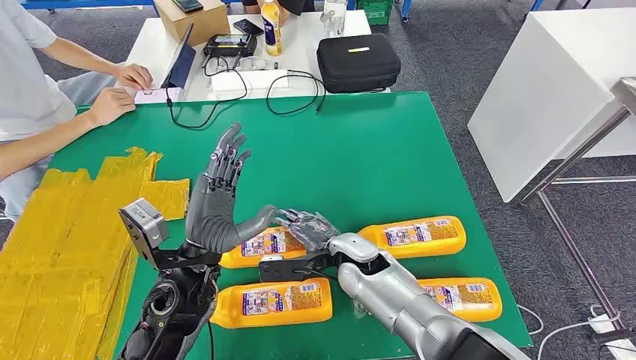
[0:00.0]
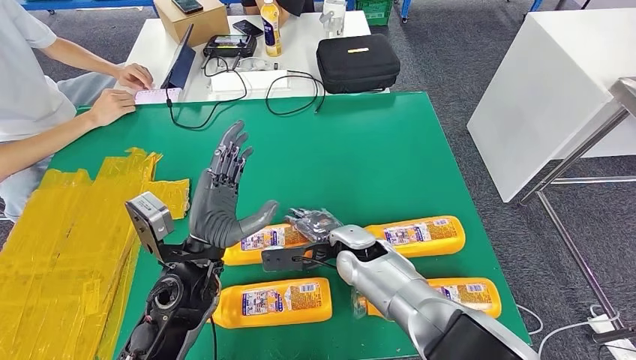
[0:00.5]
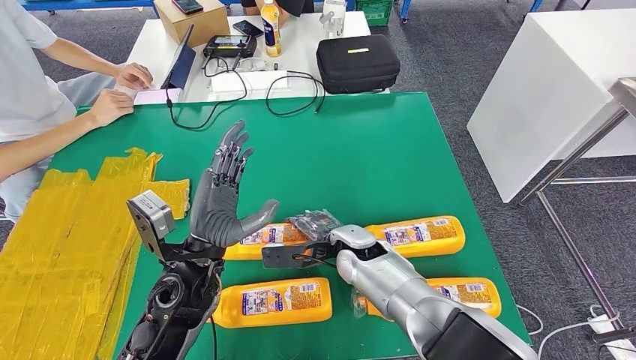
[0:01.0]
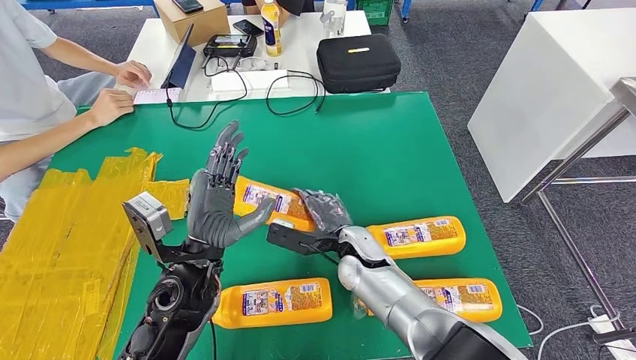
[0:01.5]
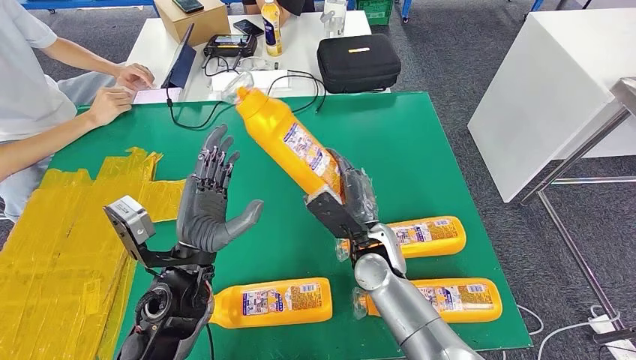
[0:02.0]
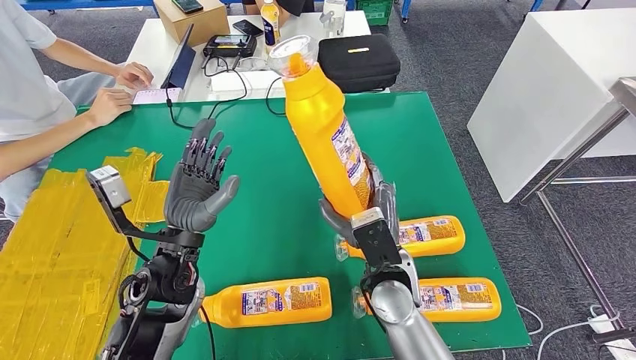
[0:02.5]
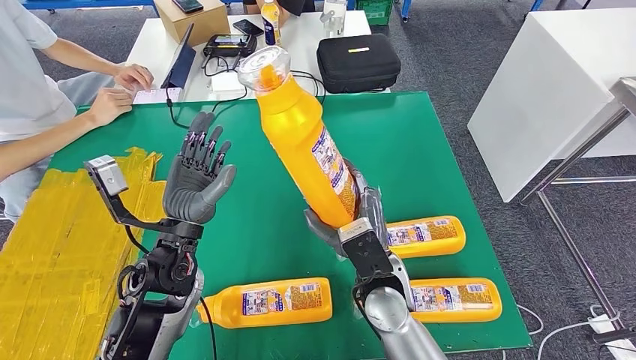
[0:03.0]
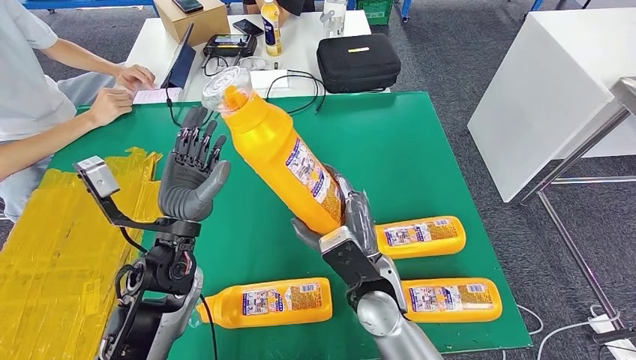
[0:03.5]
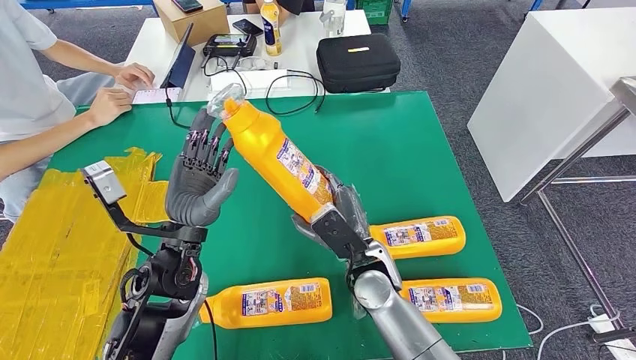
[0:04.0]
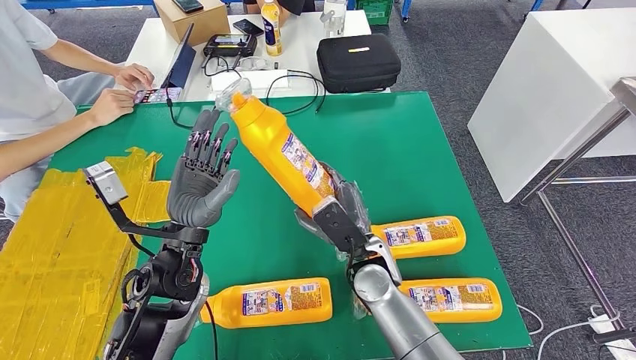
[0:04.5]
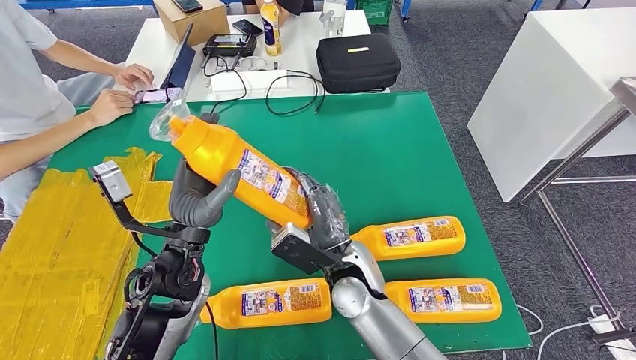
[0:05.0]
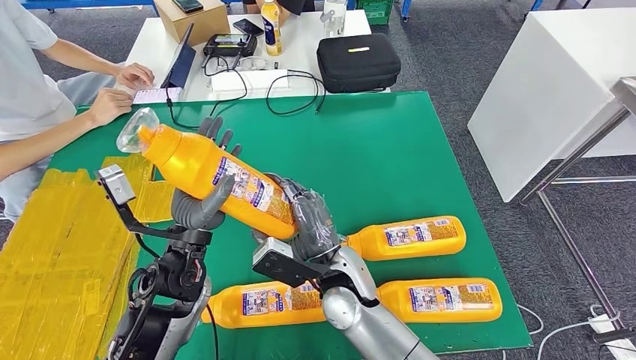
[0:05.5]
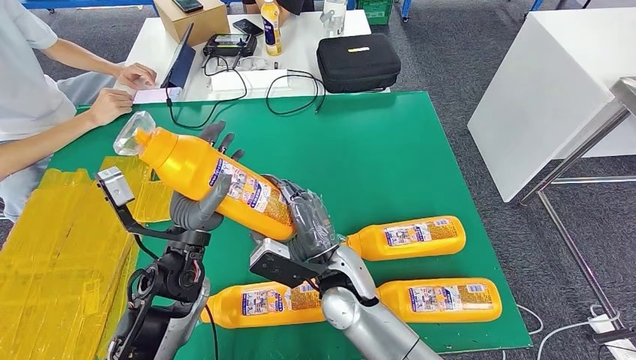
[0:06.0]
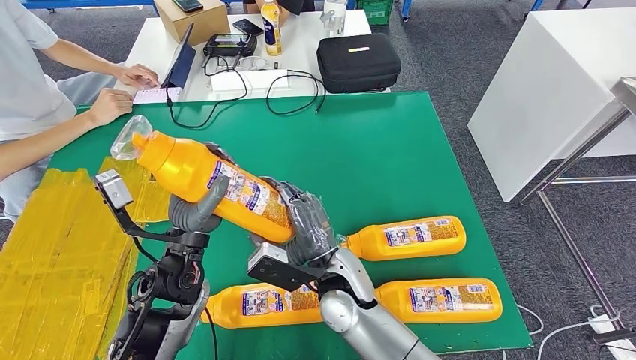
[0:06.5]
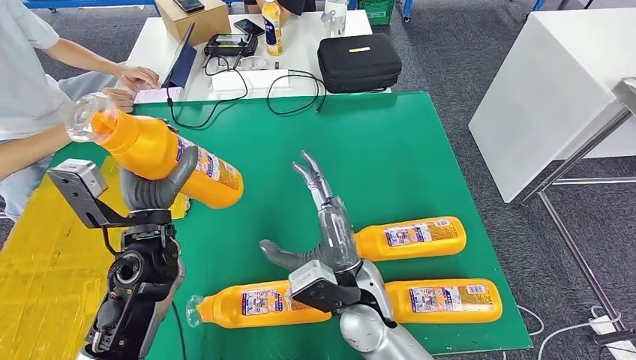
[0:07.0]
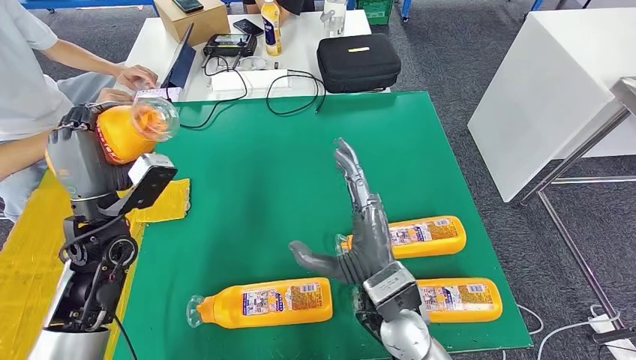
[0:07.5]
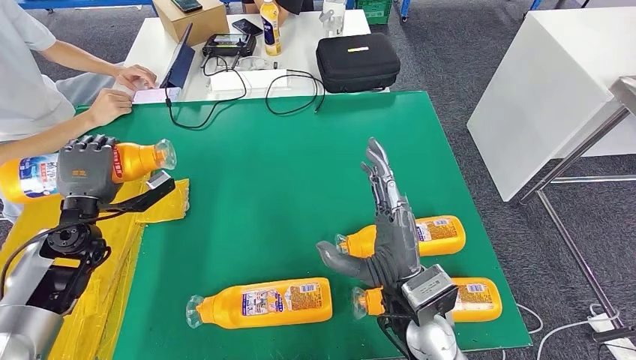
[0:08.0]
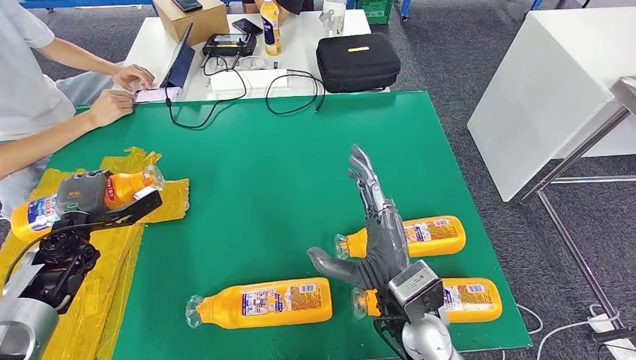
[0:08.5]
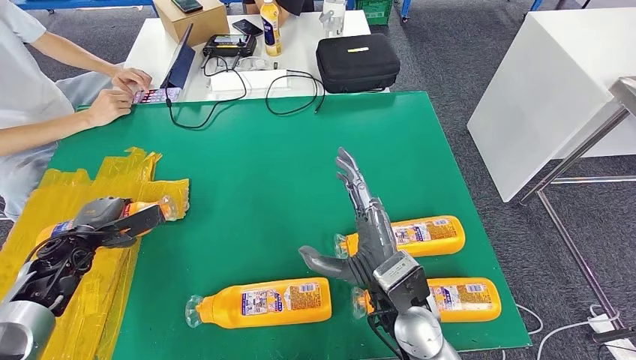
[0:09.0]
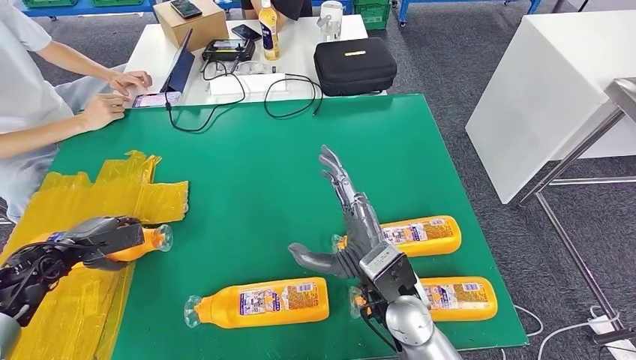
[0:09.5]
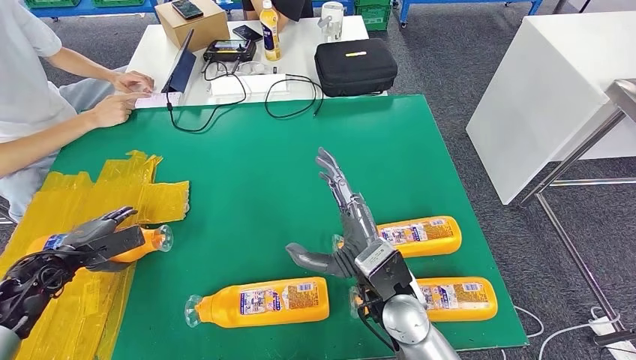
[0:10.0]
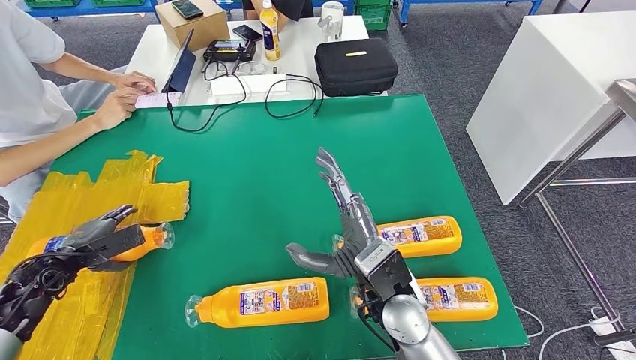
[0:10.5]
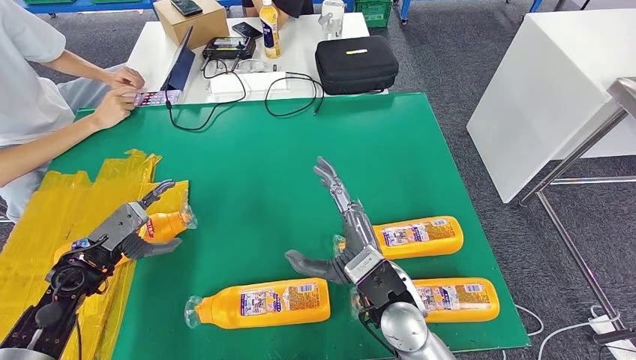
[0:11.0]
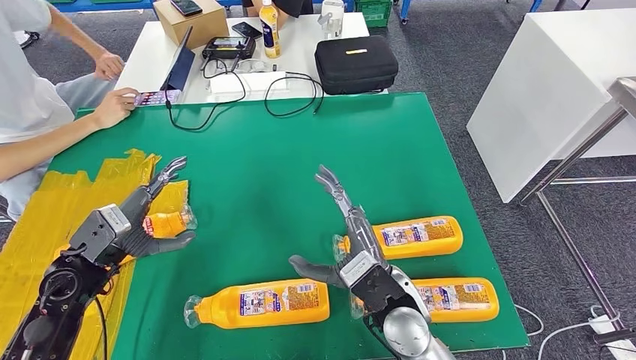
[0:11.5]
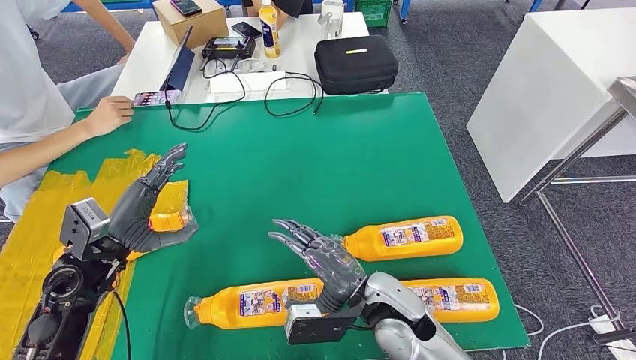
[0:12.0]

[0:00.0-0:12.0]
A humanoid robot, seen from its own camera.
Step, 0:00.0 to 0:04.0: Take the fast-moving consumer goods bottle from the table.
Step, 0:04.5 to 0:11.5: Flip the fast-moving consumer goods bottle to the front side.
0:04.0 to 0:06.0: The right hand shifts some 5 cm to the left.

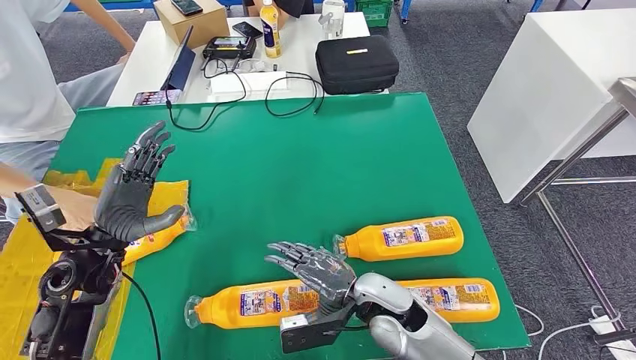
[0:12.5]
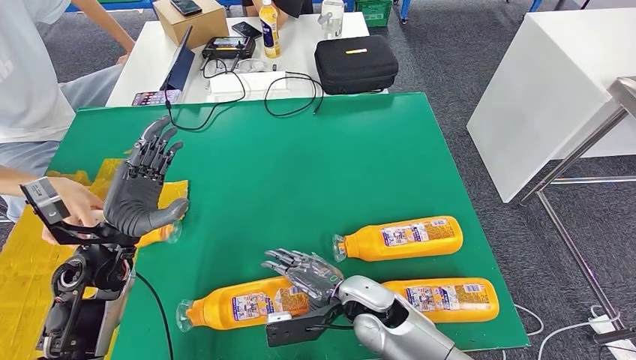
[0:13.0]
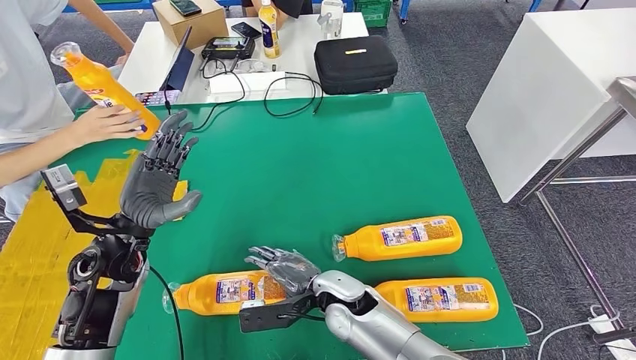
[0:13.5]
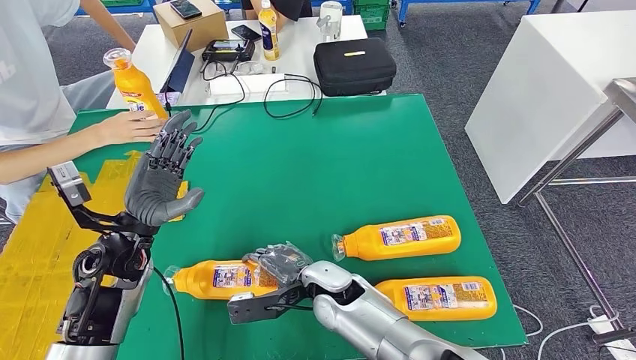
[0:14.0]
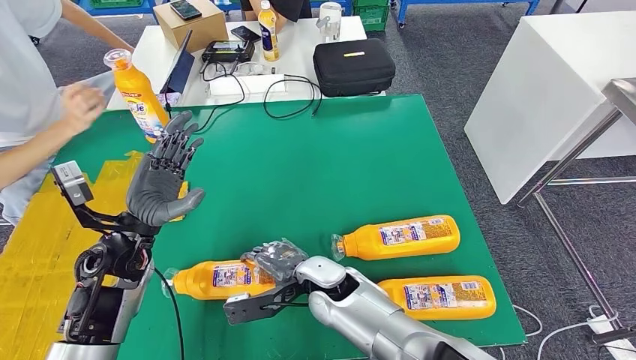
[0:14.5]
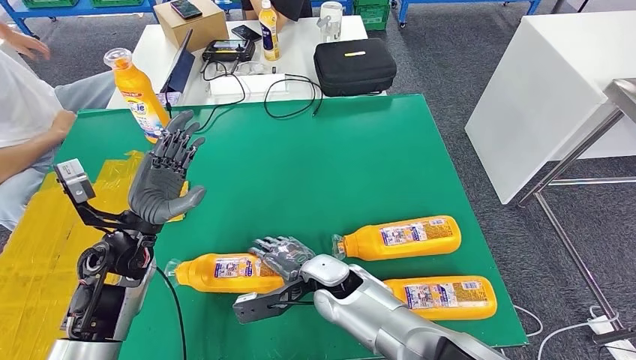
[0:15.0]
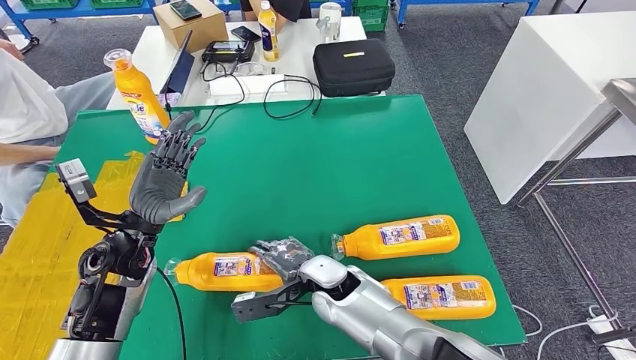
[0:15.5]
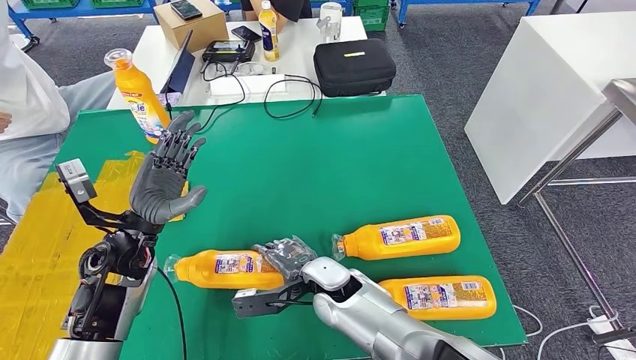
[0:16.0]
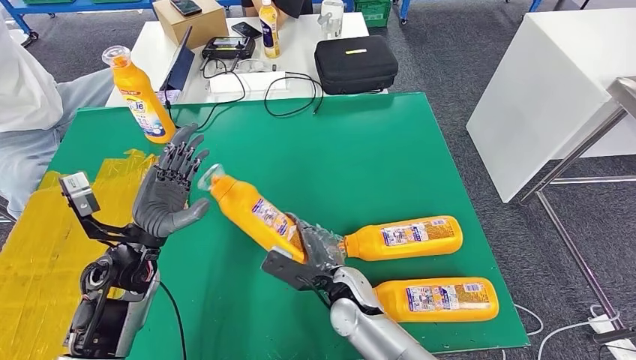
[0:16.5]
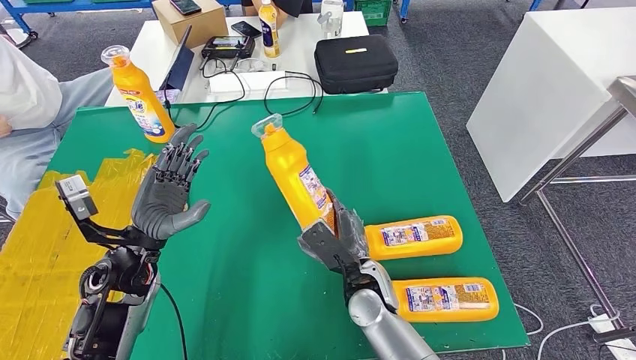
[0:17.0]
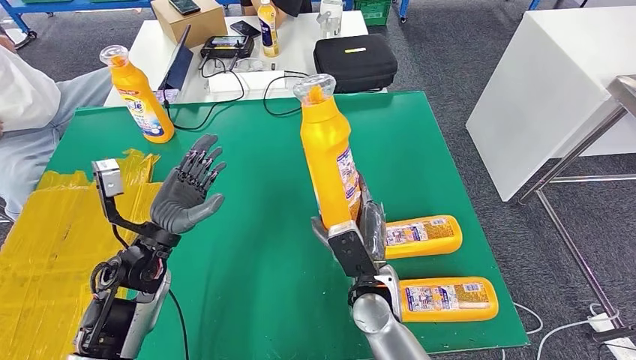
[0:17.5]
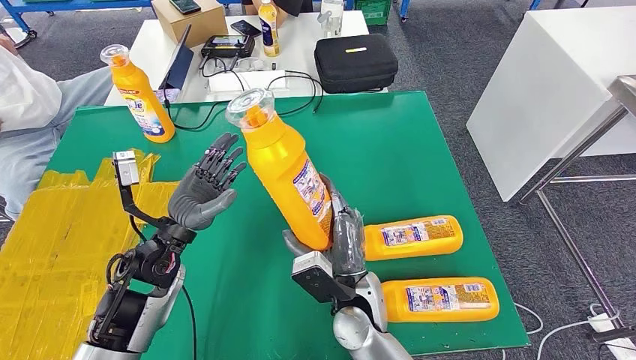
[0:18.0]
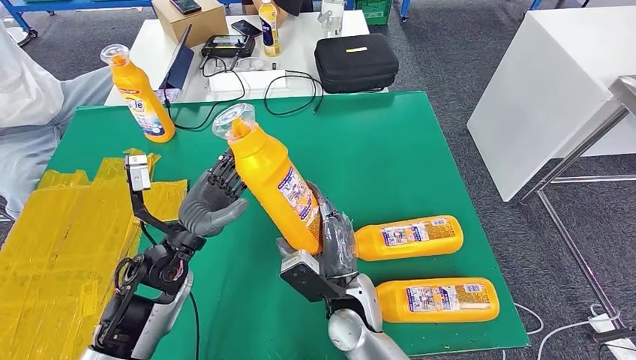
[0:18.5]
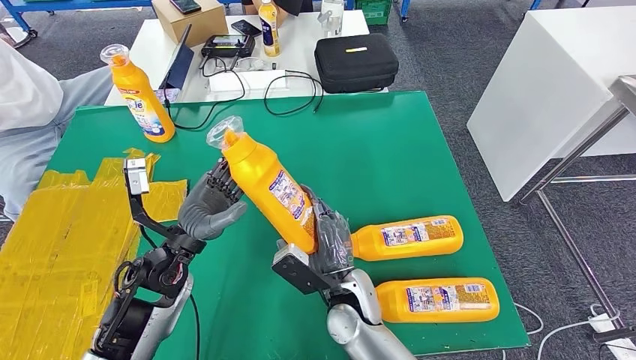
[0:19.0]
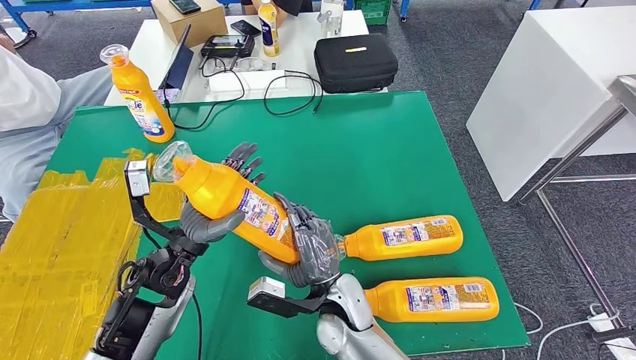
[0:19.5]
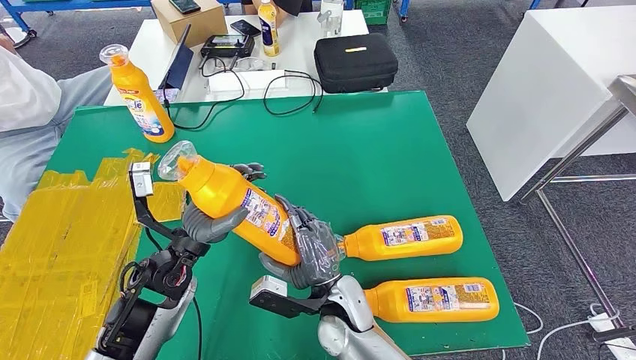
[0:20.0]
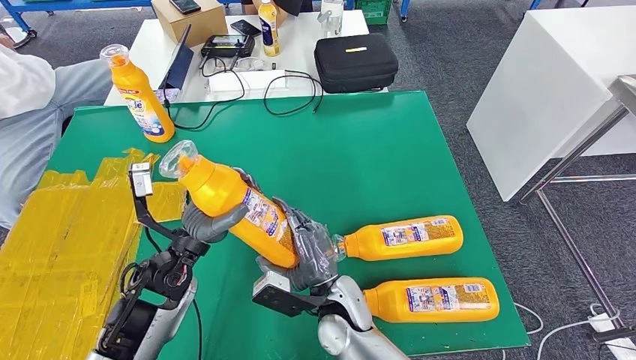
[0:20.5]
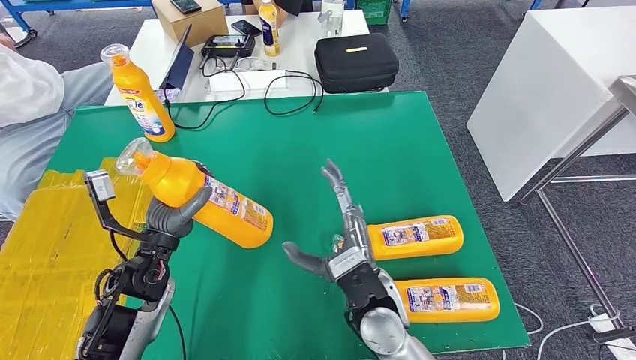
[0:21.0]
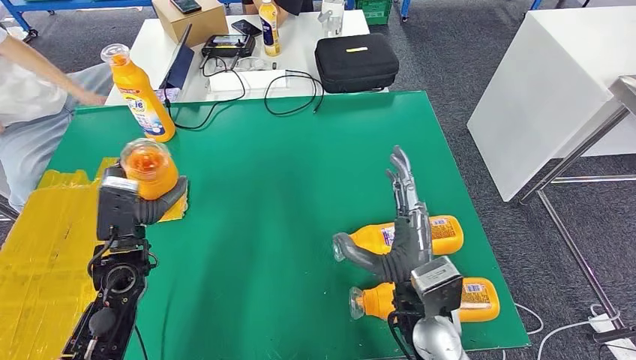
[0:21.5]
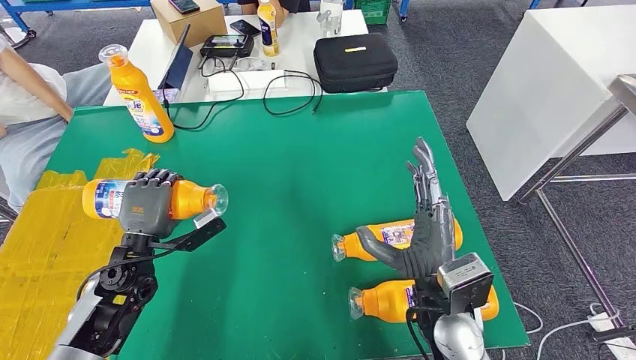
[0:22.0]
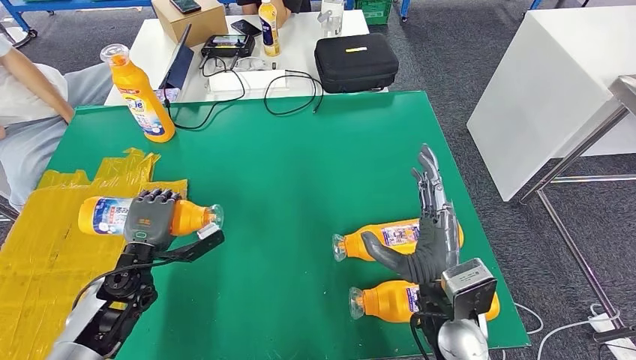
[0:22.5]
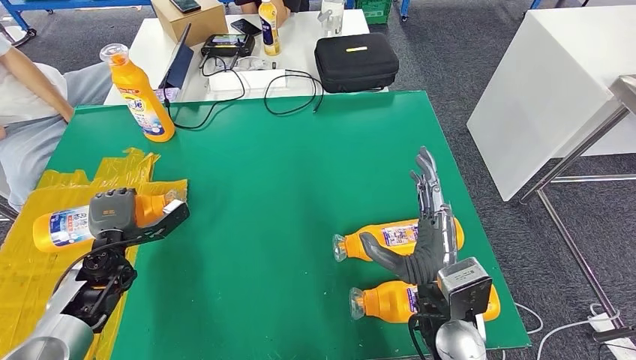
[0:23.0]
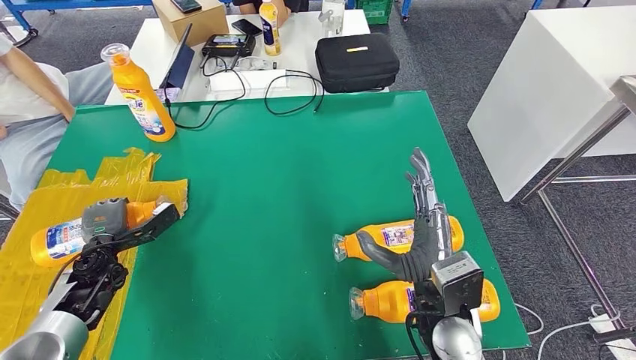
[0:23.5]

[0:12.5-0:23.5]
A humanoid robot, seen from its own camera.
Step, 0:15.0 to 0:17.5: Pick up the fast-moving consumer goods bottle from the table.
0:14.5 to 0:16.0: The hands make only small movements.
0:21.5 to 0:23.5: The left hand is displaced to the left and downward by some 15 cm.
